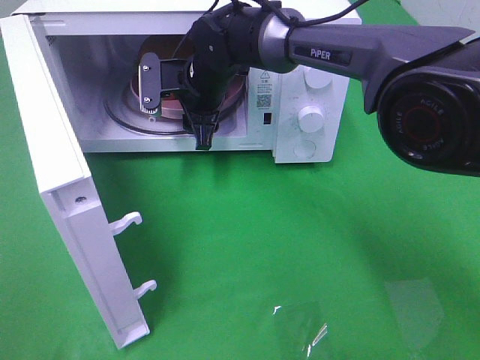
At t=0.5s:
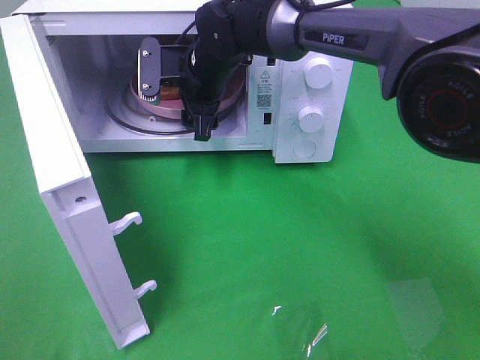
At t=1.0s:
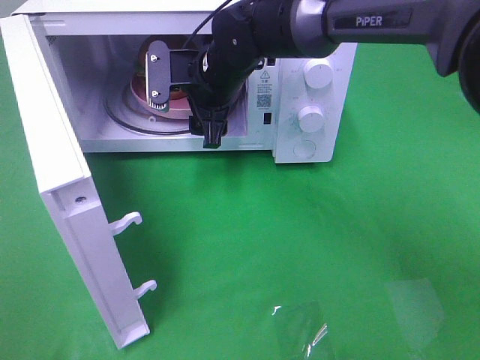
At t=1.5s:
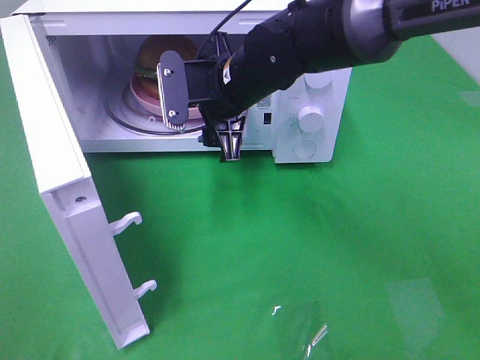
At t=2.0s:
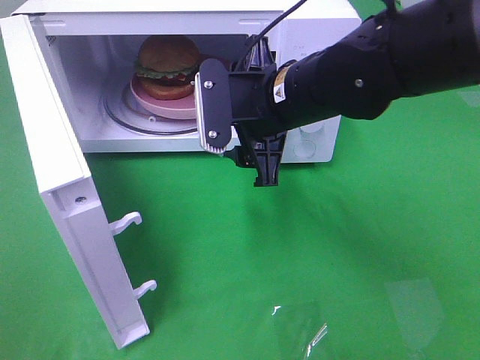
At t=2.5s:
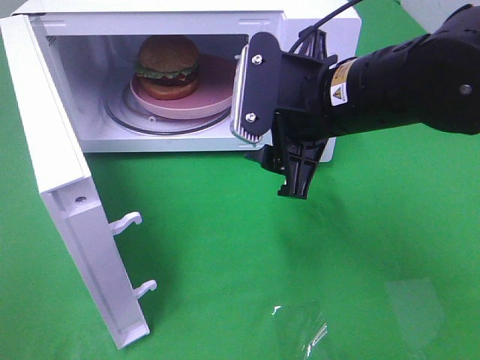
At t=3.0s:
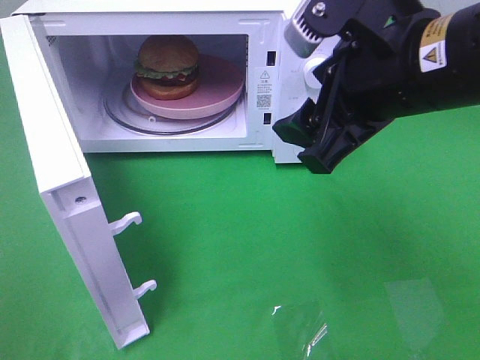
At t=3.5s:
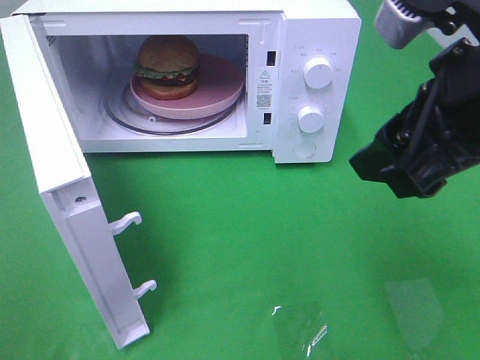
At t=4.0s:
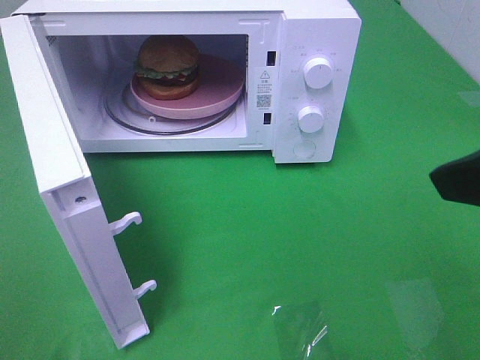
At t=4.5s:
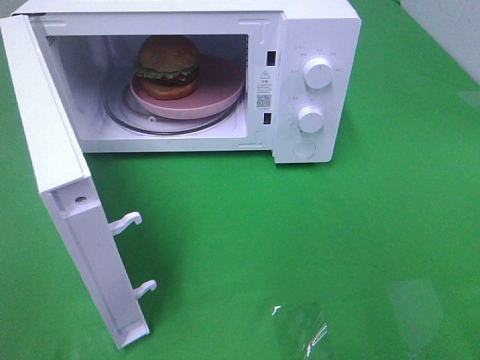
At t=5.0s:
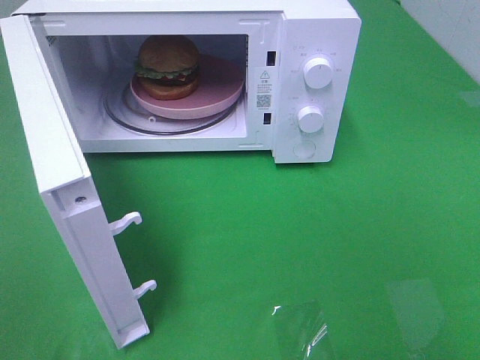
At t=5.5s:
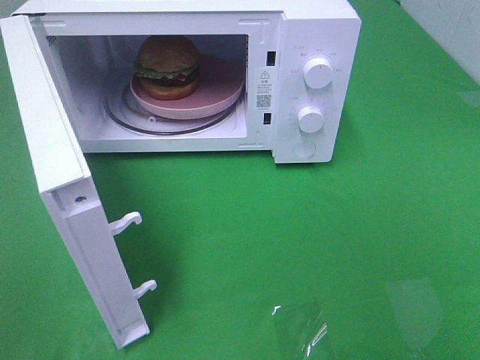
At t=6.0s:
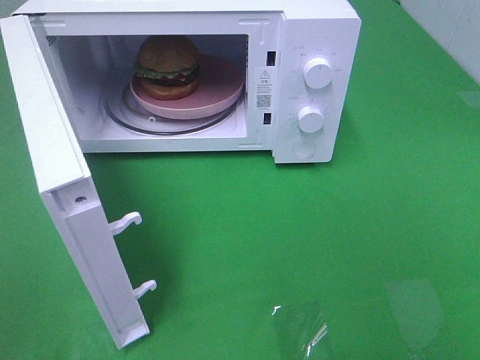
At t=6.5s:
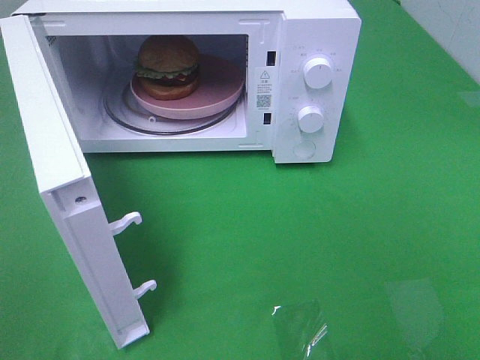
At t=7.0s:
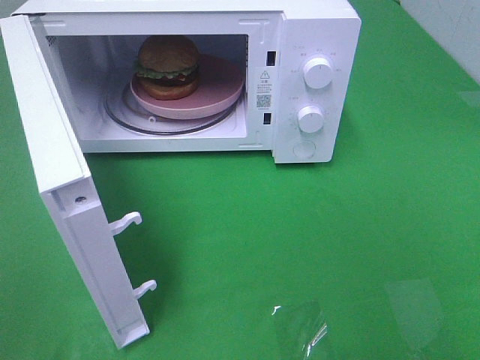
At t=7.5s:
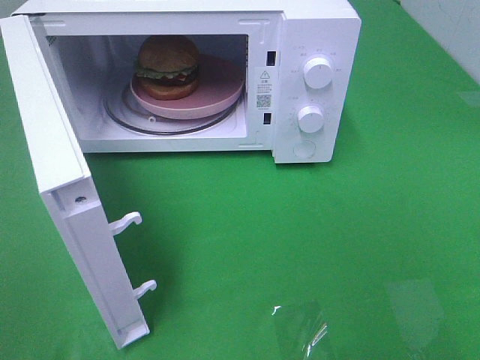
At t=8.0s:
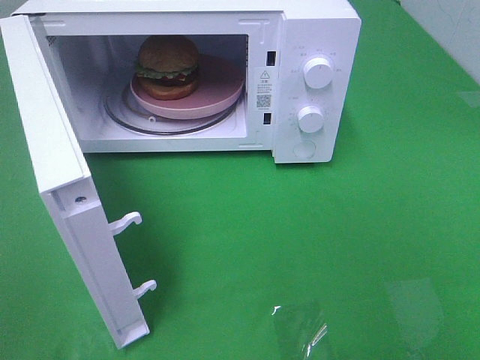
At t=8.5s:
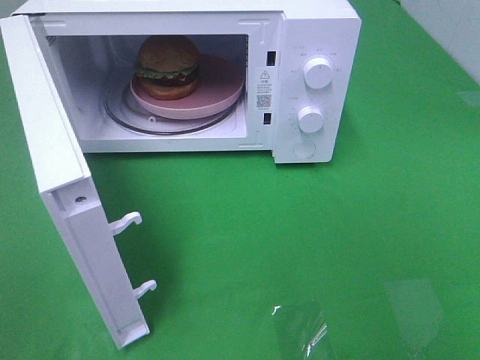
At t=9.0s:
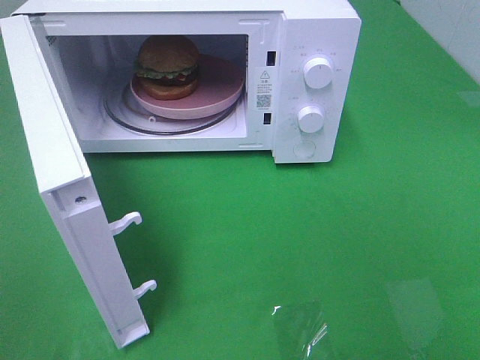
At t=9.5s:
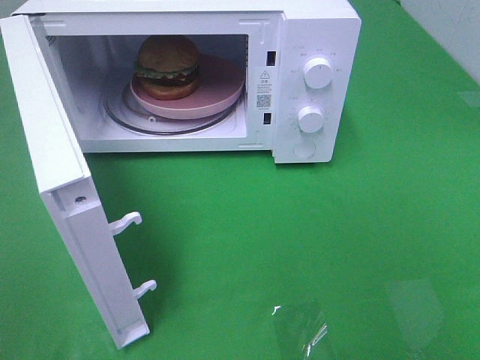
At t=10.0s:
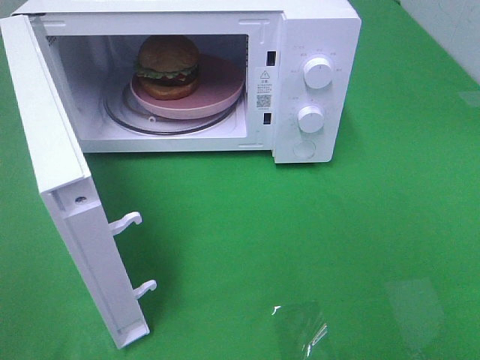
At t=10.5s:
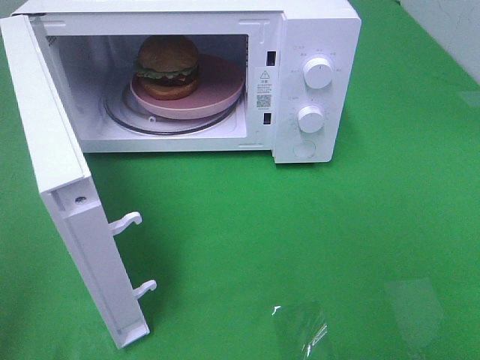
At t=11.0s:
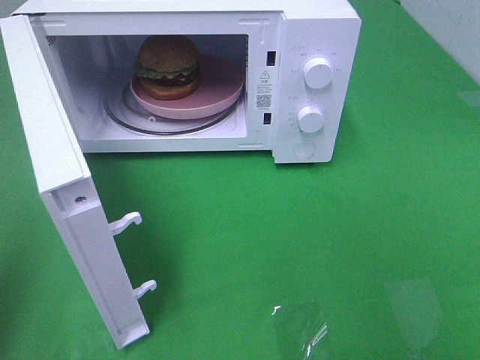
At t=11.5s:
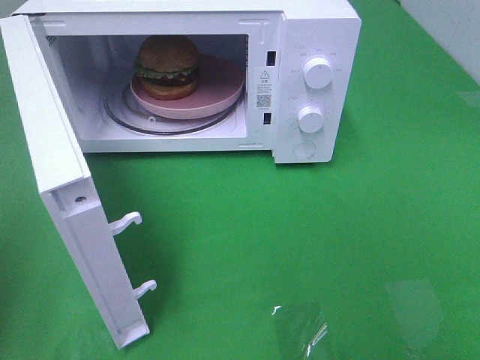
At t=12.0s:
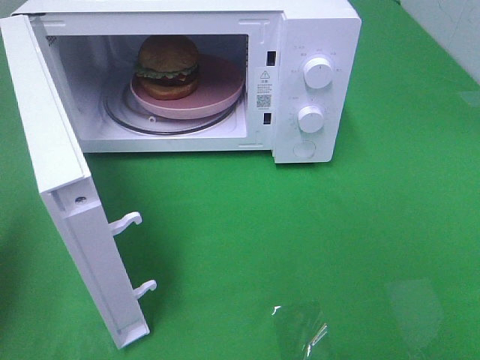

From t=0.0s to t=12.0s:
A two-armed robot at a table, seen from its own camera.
Task of the whole recording: Heat the burger.
From t=0.0s to t=2.0s: The right gripper shifts some 15 cm backward and to the right.
From t=2.0s to t=4.0s: The right gripper heads backward, to the right and upward, covering roughly 25 cm.
From t=4.0s to t=6.0s: The right gripper goes approximately 15 cm backward and to the right.
From t=8.0s to t=10.0s: The two grippers keep their place.
From t=10.0s to t=12.0s: The left gripper moves forward, some 20 cm, and closes.

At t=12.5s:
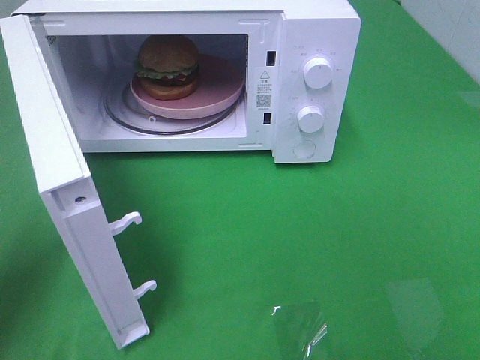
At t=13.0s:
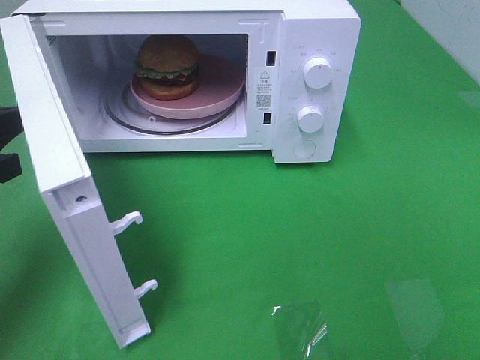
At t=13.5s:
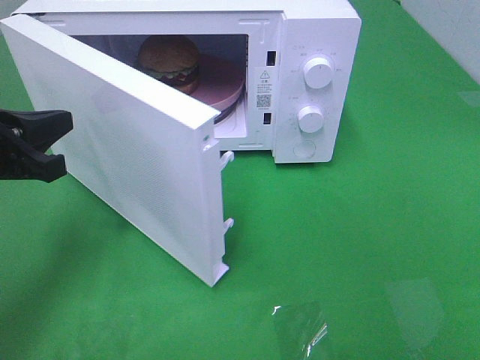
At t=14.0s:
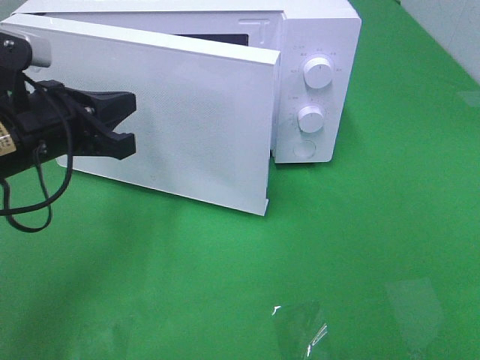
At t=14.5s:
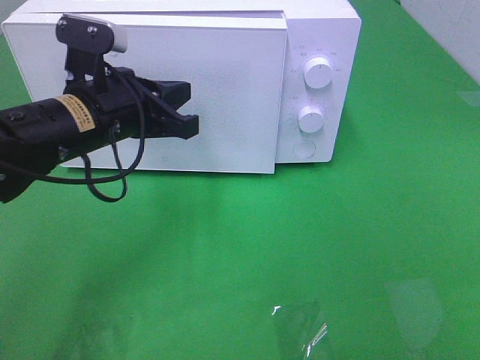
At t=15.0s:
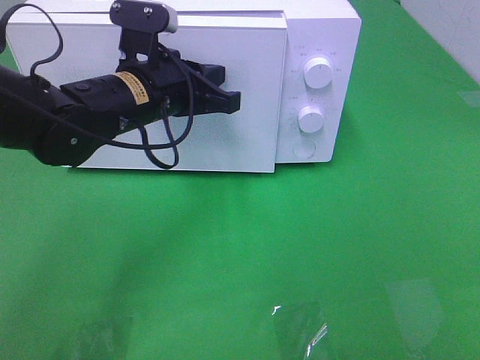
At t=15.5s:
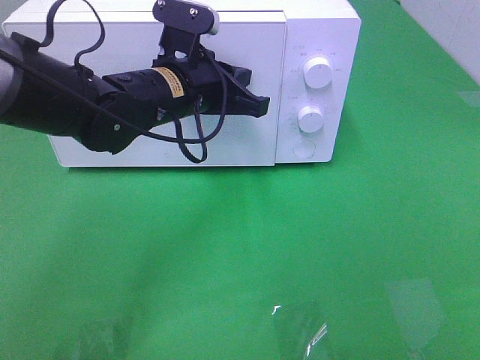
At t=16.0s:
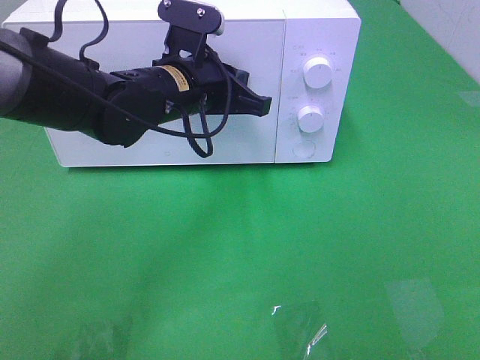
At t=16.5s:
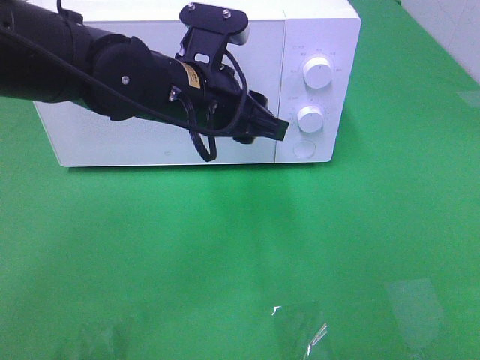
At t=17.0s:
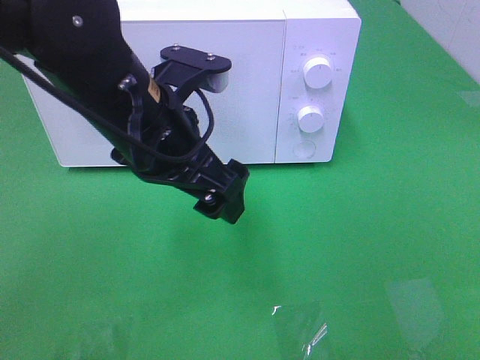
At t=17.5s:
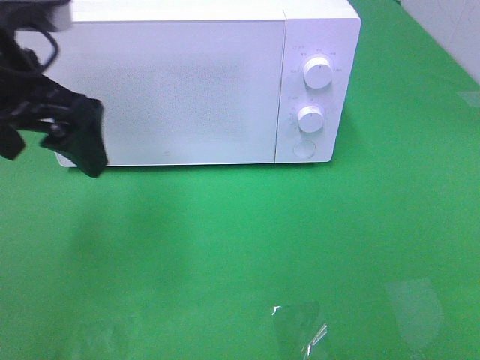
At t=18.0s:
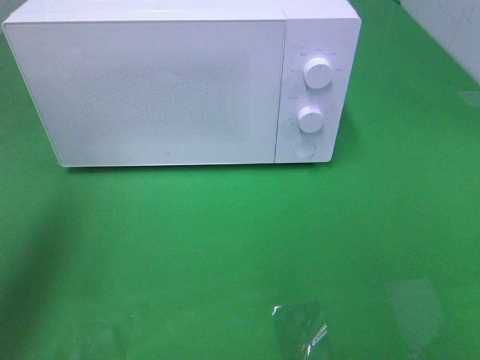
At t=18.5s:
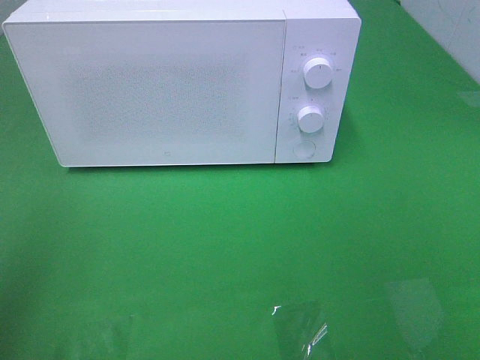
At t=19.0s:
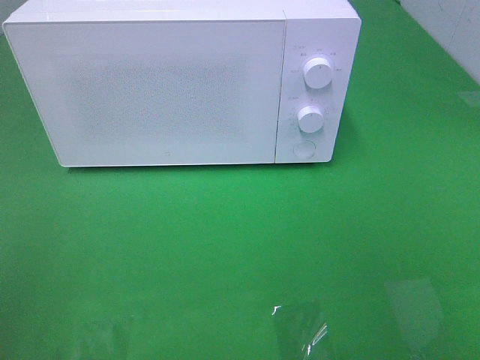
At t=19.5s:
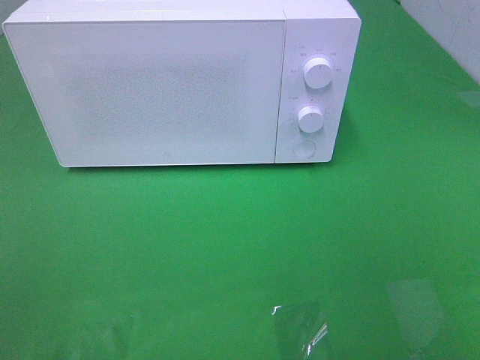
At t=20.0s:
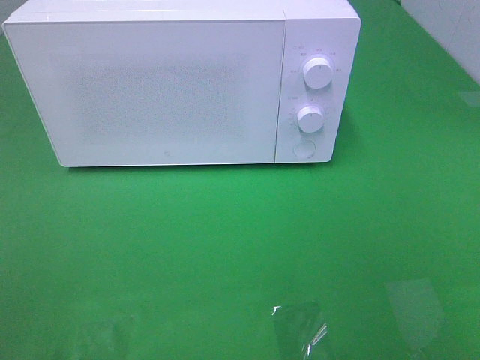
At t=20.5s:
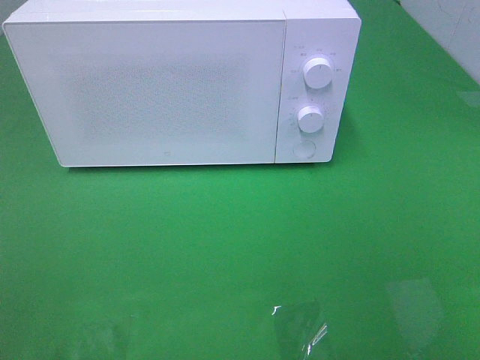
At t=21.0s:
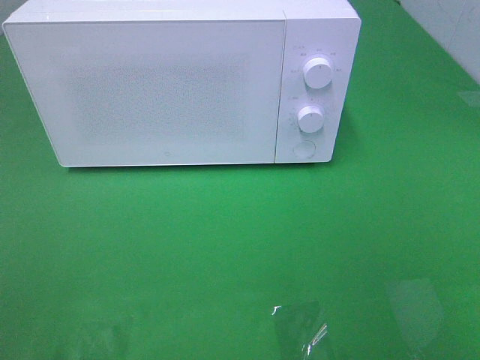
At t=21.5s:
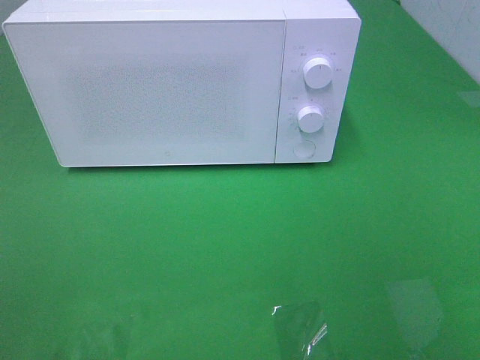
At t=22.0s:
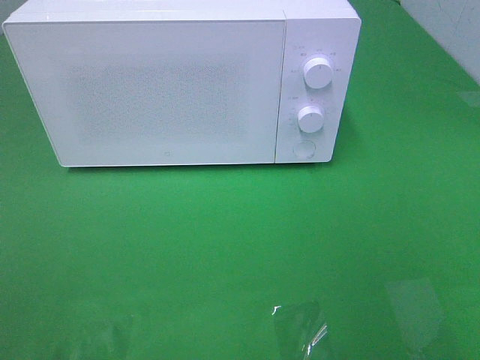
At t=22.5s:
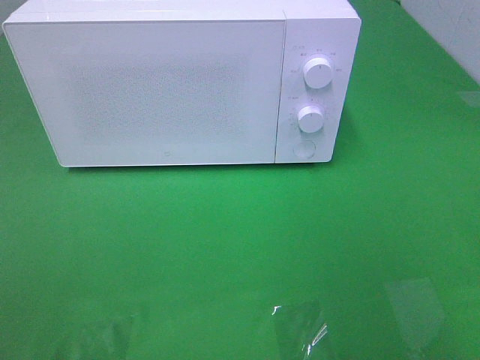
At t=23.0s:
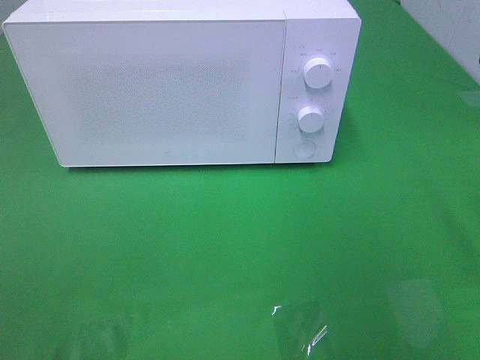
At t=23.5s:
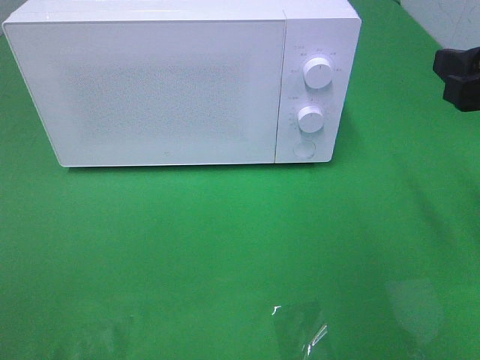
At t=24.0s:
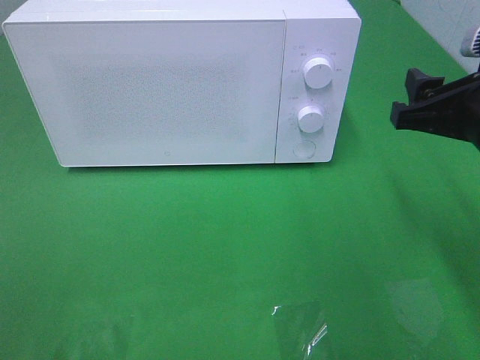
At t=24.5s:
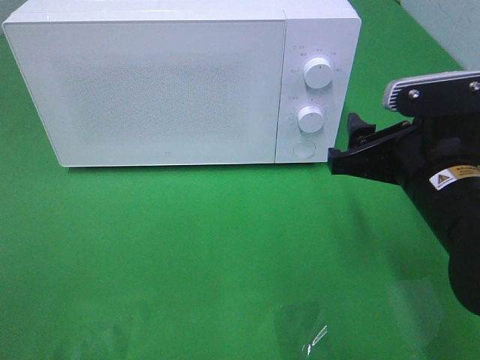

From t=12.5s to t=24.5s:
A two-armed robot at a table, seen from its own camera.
Task of the whole recording: Heat the burger.
Step, from t=12.5s to t=16.0s: Left hand: close the microwave door.
From t=12.5s to t=14.5s: The left gripper travels to the right and forward by roughly 20 cm.
From t=14.5s to t=16.5s: The left gripper goes roughly 10 cm to the right, and opens its fingers.
From t=16.5s to t=18.5s: The left gripper moves to the left and backward, approximately 35 cm, and opens.
From t=22.5s to t=24.5s: The right gripper heads downward, to the left and forward, covering roughly 20 cm.

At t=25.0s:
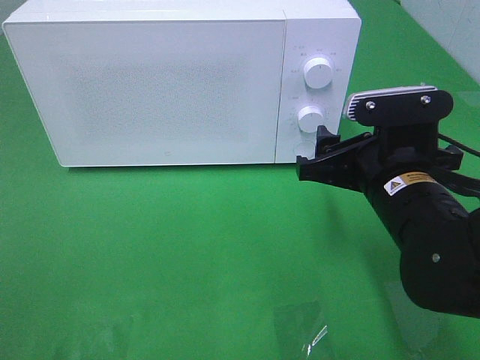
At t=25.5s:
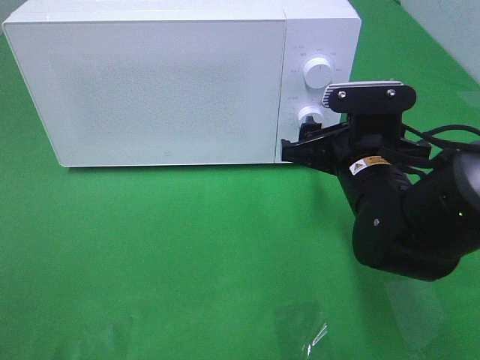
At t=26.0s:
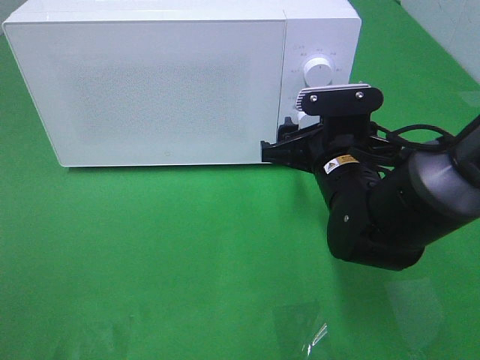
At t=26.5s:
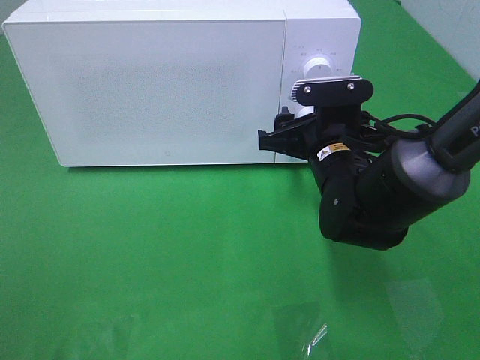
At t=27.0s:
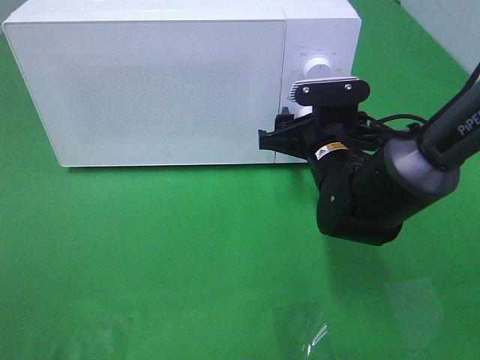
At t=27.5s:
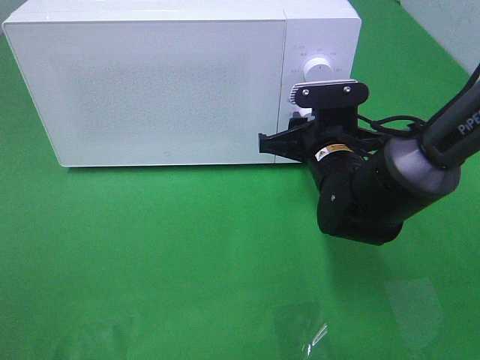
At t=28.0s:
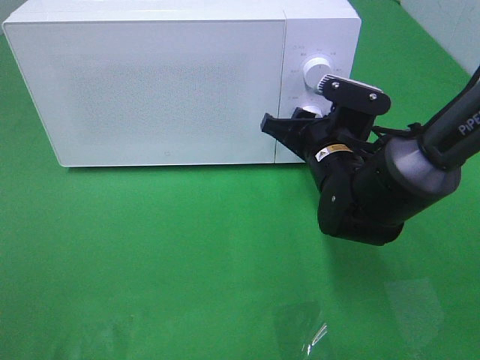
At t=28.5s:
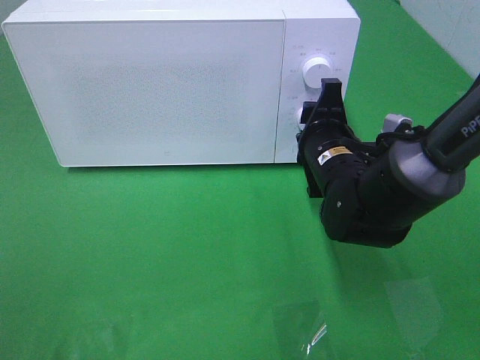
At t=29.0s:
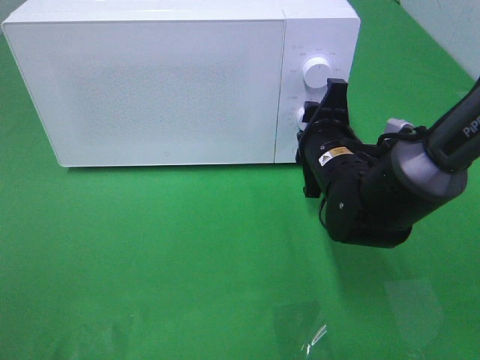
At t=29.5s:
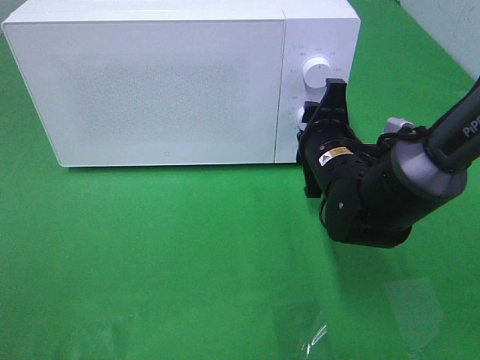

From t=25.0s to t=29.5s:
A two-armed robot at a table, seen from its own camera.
Task of the whole recording: Heat the burger.
From t=25.0s to t=27.0s: The right gripper heads forward, covering about 10 cm.
